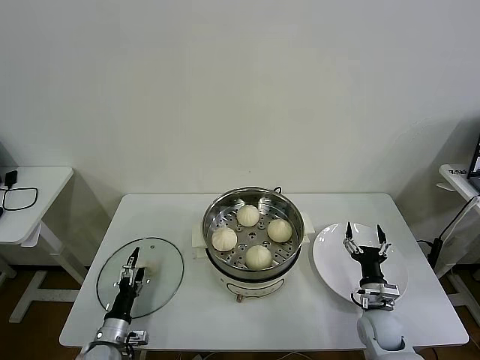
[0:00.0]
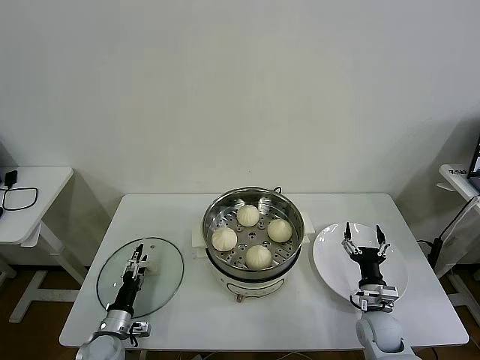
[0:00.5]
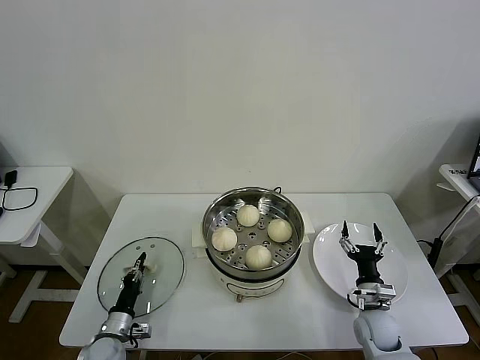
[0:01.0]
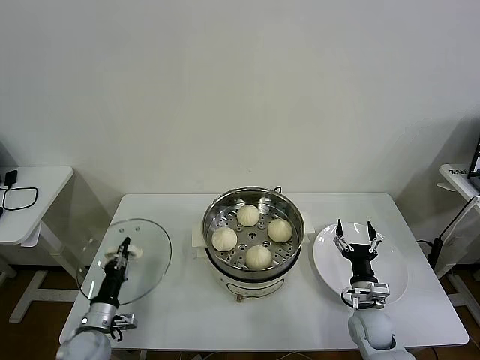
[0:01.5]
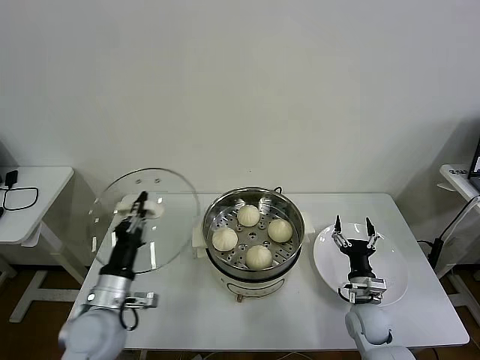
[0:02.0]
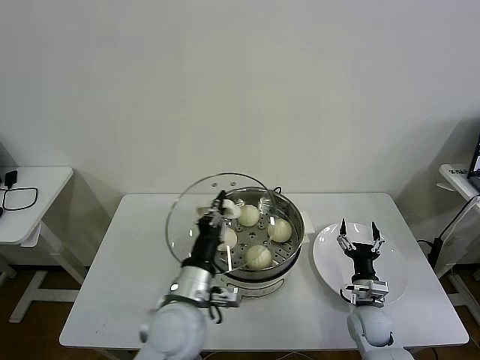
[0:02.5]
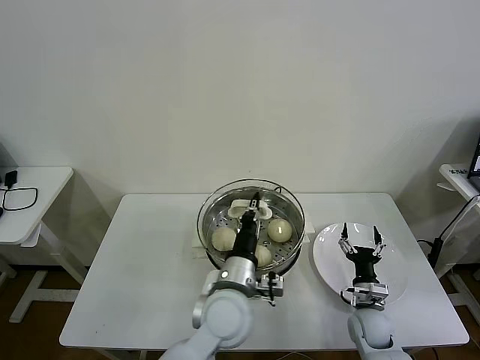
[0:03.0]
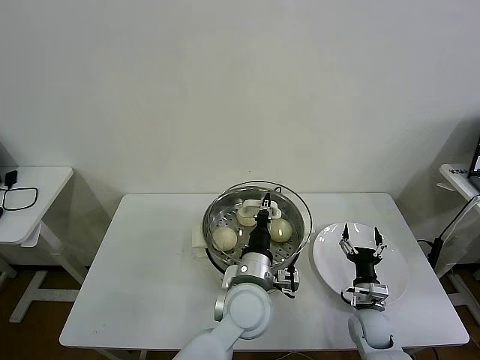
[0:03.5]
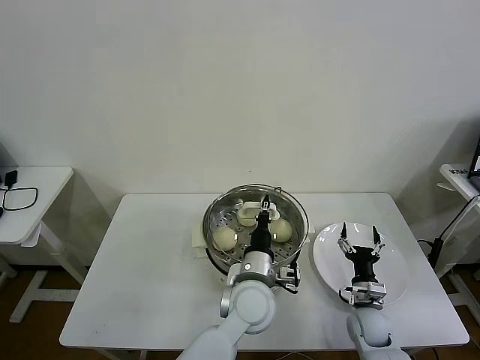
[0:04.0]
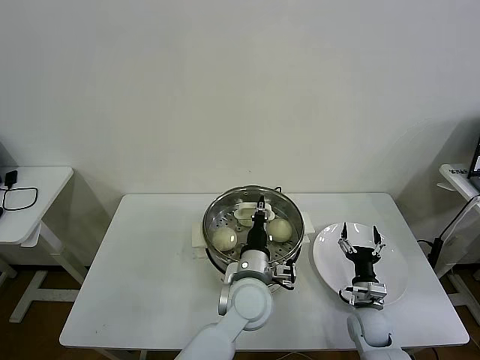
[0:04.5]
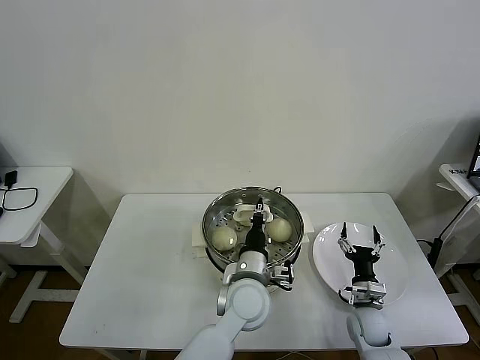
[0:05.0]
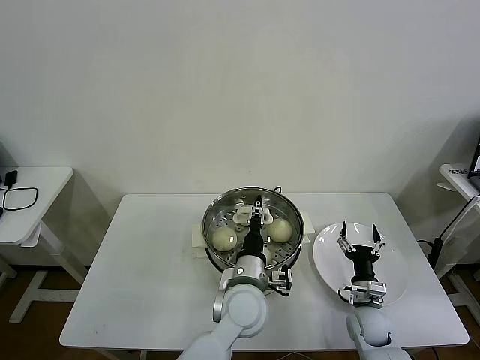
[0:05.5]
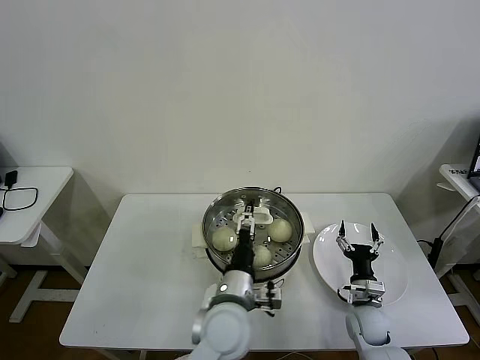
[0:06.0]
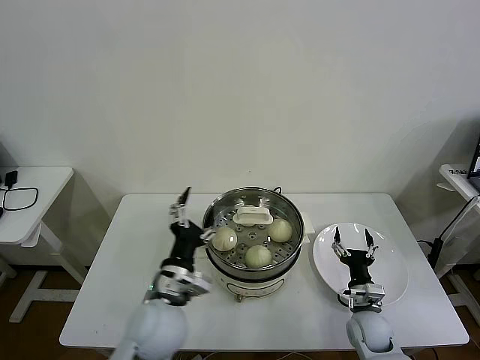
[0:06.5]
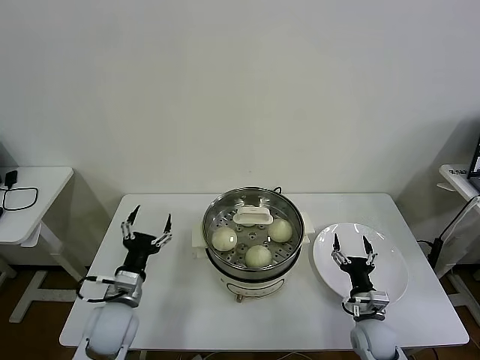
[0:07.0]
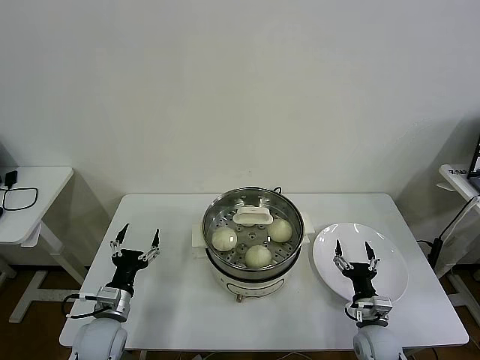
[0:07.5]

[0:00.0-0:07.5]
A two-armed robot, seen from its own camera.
Task of the whole recording: take steamed baozi put them in steamer then cover it.
Step, 1.5 to 5.5 s: Place the pot lid on the steamer with left gripper.
0.0 to 2.0 s: The left gripper goes roughly 20 cm upward, and closes.
2.0 to 4.0 s: The left gripper heads to the right, covering roughly 30 cm.
4.0 to 5.5 s: The left gripper opens its fingers.
5.5 to 7.5 s: The left gripper moves to the left, approximately 30 cm, and opens.

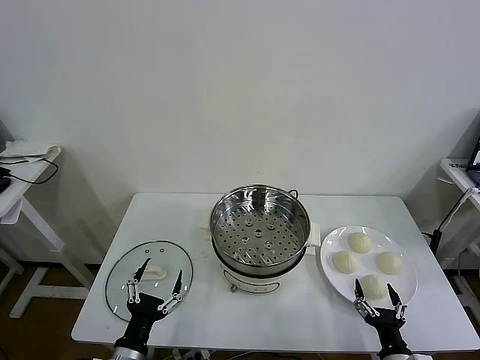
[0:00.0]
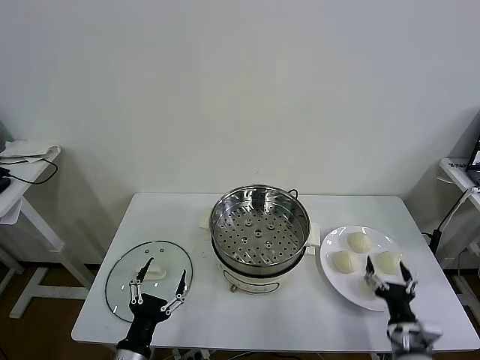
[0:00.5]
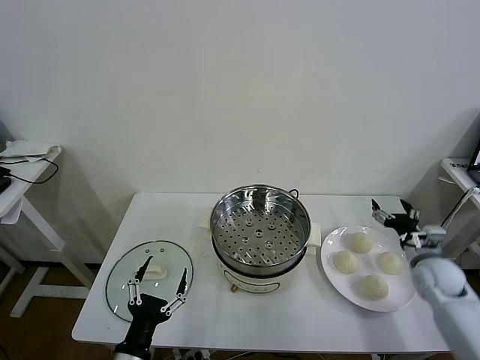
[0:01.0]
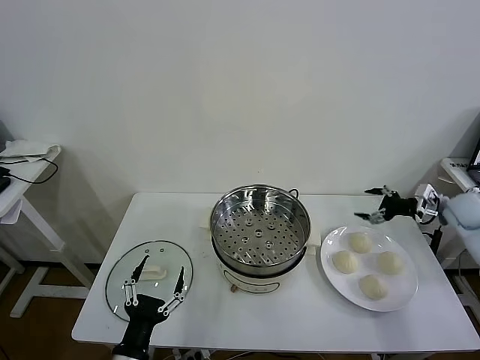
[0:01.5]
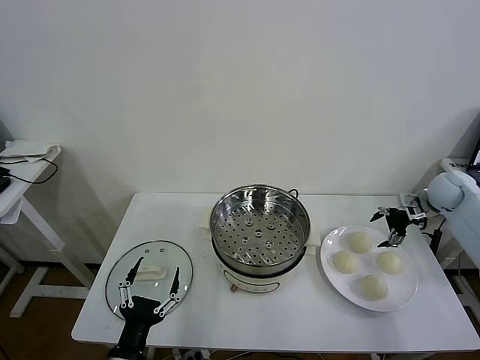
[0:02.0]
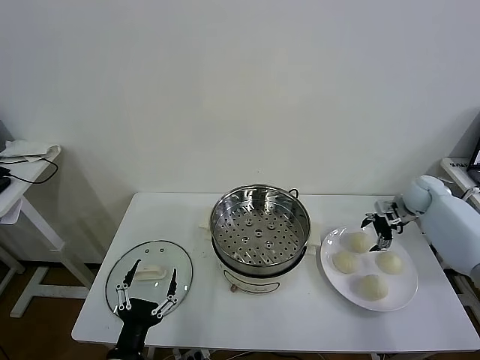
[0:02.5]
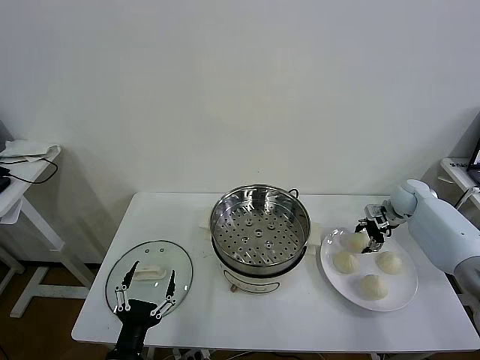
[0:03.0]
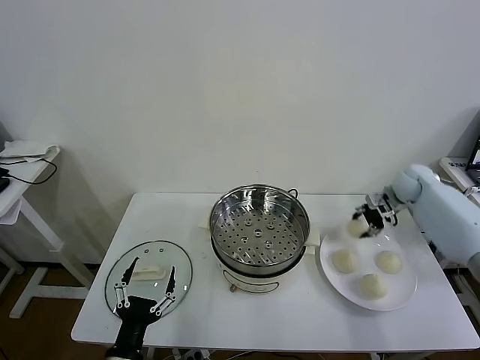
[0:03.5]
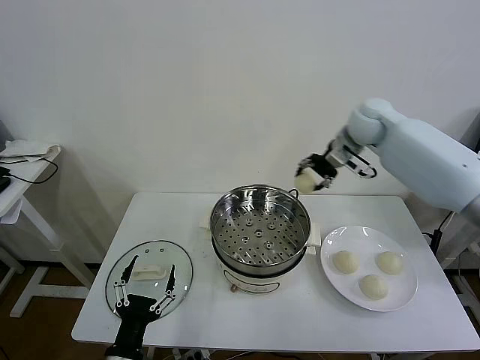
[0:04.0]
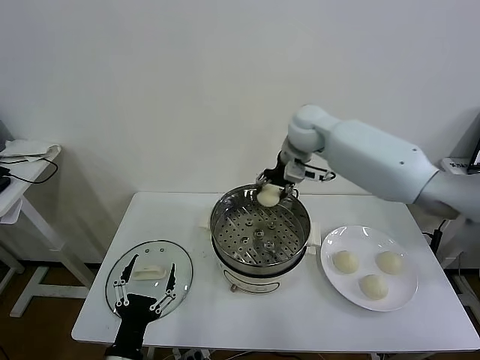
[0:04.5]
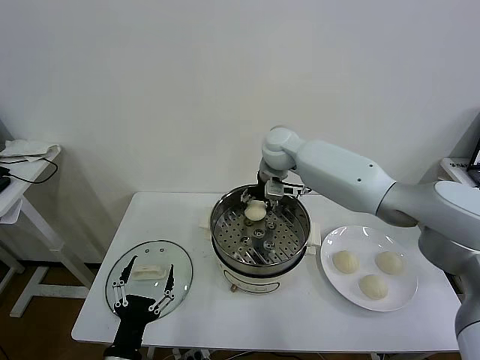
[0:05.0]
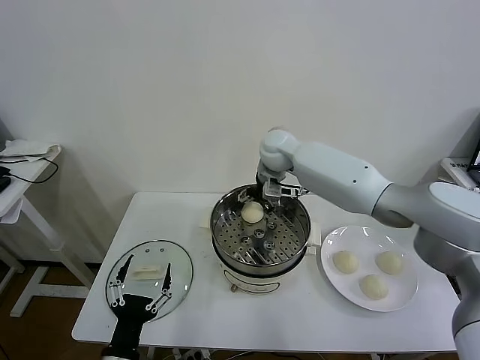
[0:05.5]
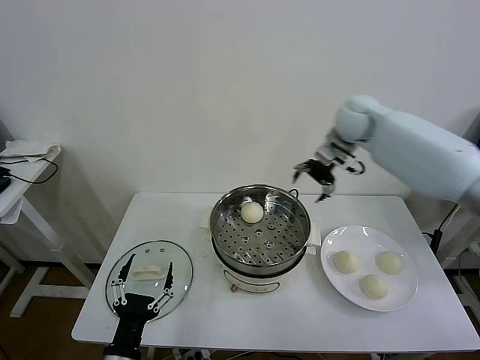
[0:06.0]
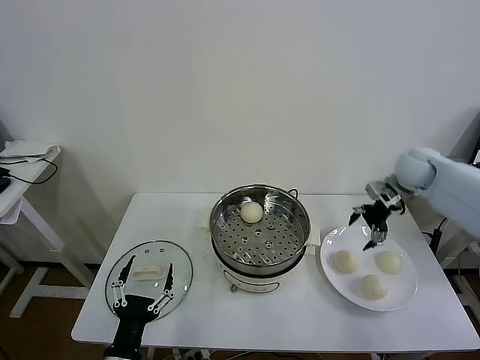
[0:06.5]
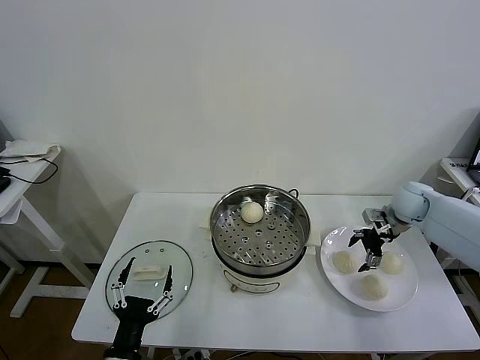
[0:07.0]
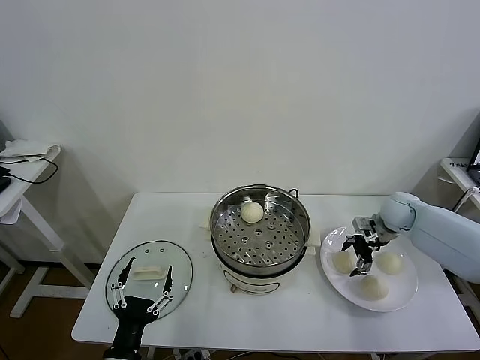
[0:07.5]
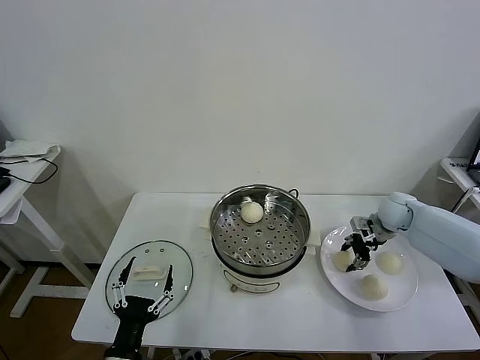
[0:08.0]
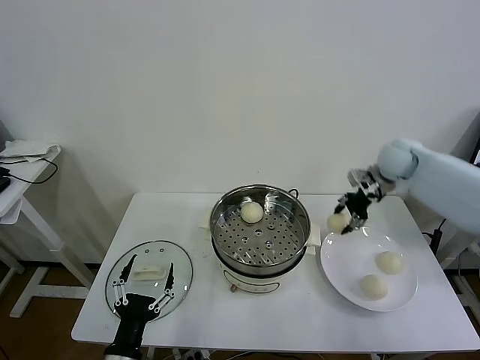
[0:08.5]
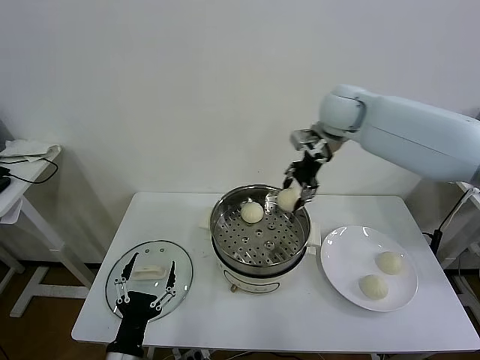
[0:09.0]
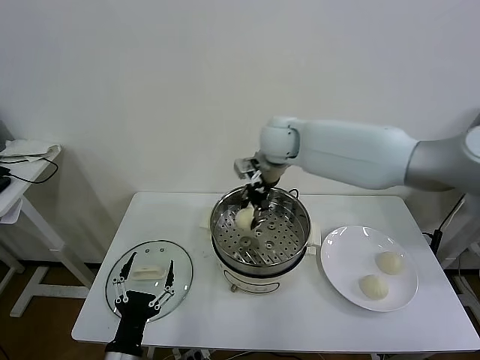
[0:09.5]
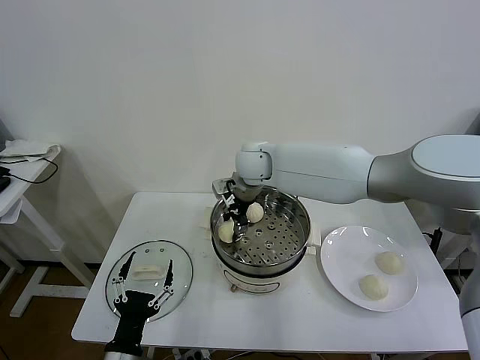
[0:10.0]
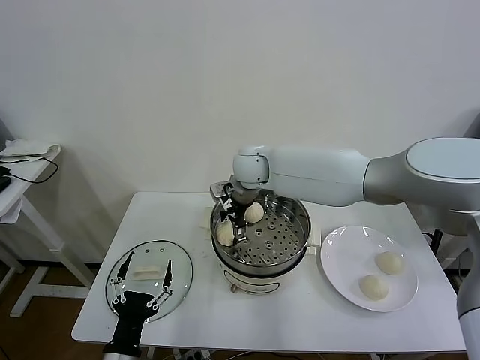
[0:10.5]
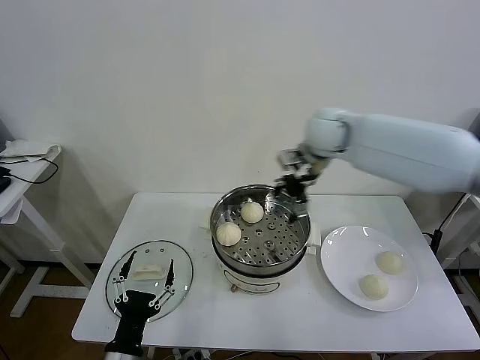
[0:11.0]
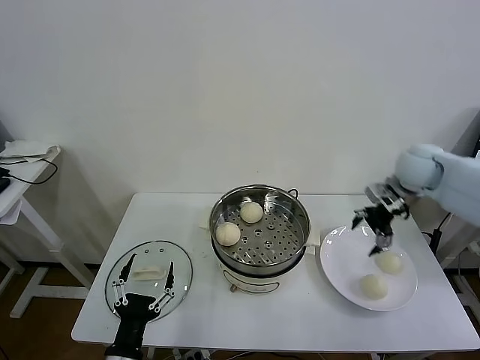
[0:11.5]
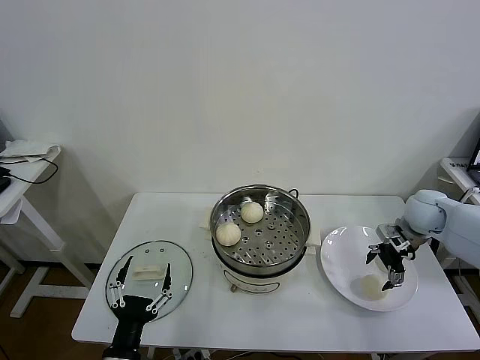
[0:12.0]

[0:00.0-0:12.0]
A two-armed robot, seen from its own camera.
Task of the whole recording: take steamed baozi put them in steamer then cover it.
Step, 0.0 to 3.0 s: Grasp the baozi in the plate with right gripper.
Step, 3.5 to 5.0 s: Place the baozi on the steamer with right gripper.
Step, 6.0 to 7.5 s: Grasp the baozi in the plate with right gripper.
Step, 8.5 to 10.5 s: Place the baozi on the steamer with right gripper.
2.0 to 4.0 s: The right gripper heads to the left and upward, covering approximately 30 cm, and closes.
4.0 to 6.0 s: The right gripper reaches some 20 cm to the left, then returns, and opens.
6.0 to 8.0 s: The right gripper heads downward and to the right, covering approximately 25 cm, and closes.
8.0 to 10.0 s: The right gripper goes about 40 cm to the left.
10.0 to 12.0 s: The right gripper goes some 40 cm to the right, and opens.

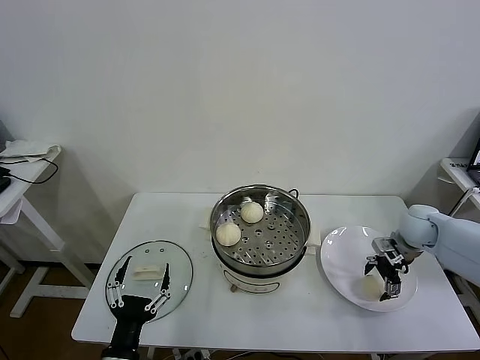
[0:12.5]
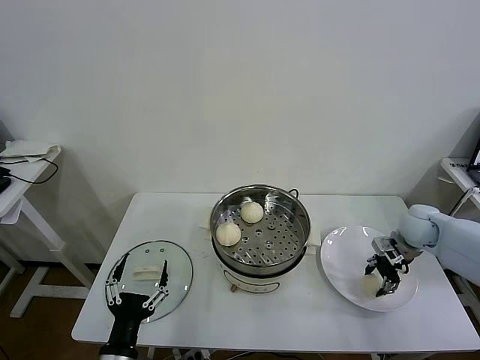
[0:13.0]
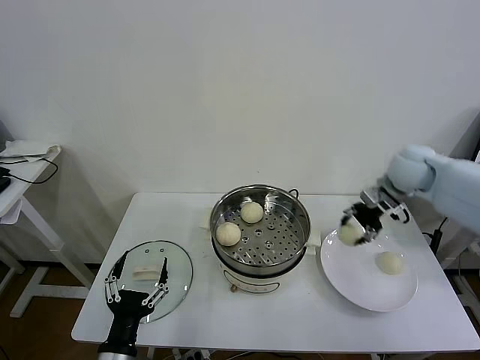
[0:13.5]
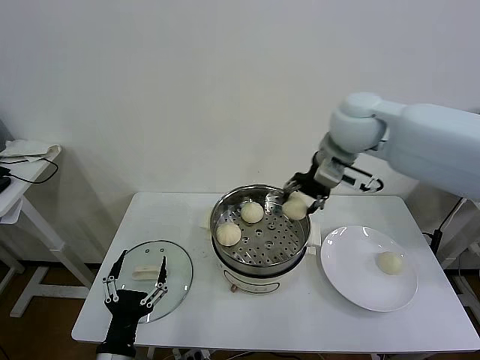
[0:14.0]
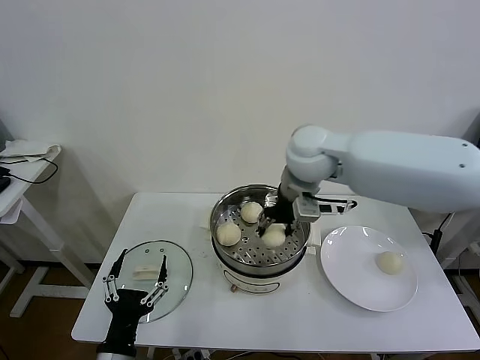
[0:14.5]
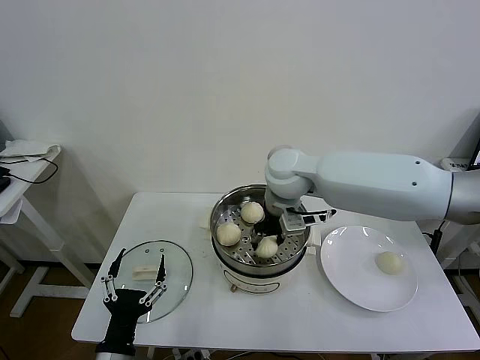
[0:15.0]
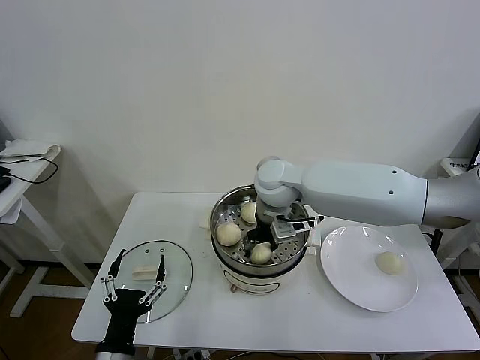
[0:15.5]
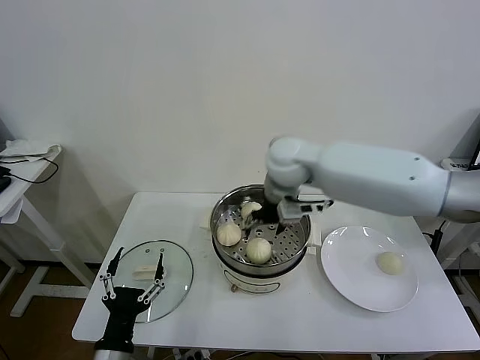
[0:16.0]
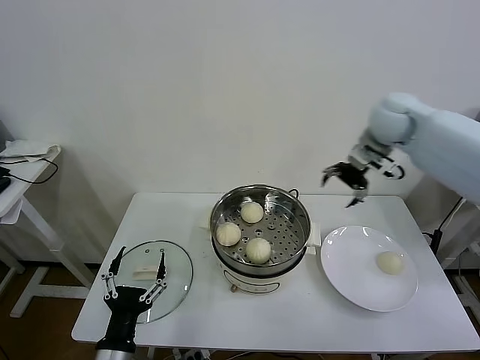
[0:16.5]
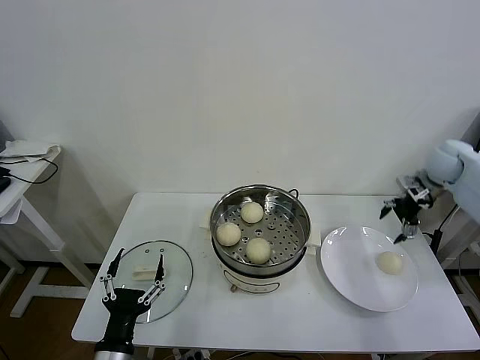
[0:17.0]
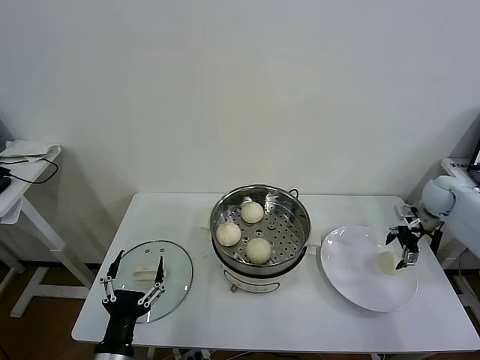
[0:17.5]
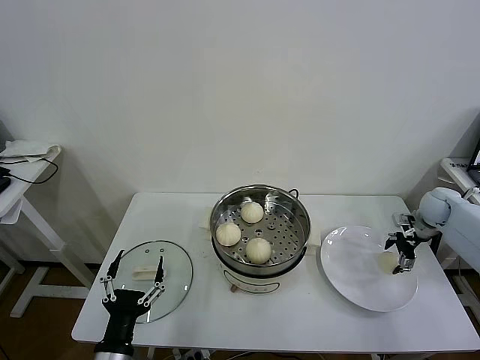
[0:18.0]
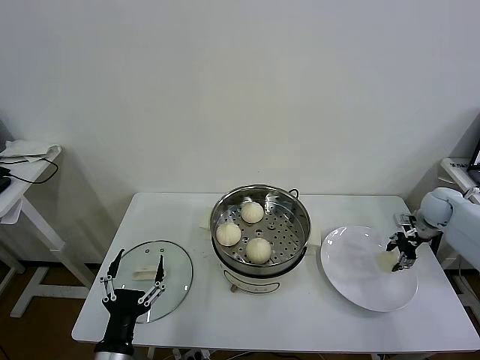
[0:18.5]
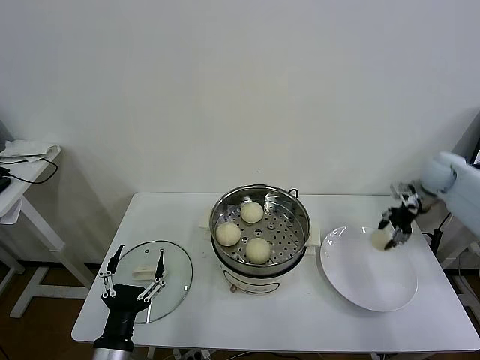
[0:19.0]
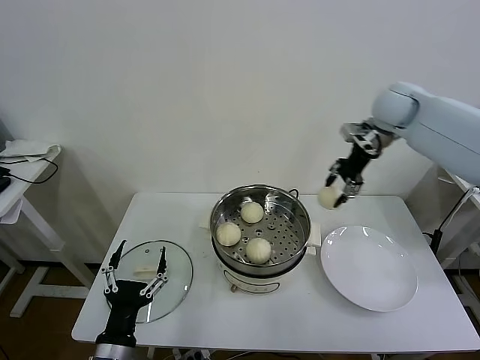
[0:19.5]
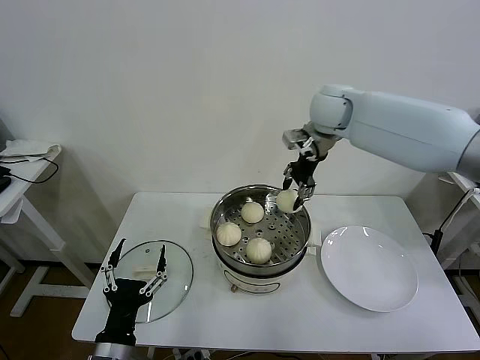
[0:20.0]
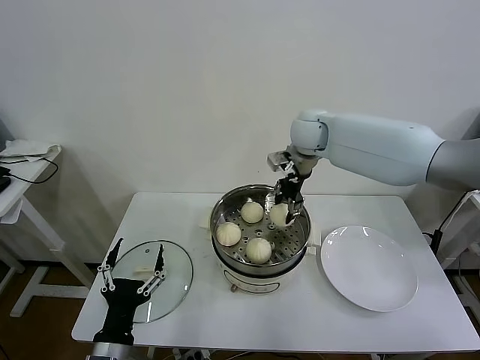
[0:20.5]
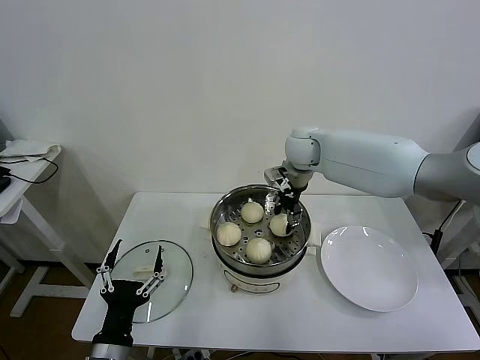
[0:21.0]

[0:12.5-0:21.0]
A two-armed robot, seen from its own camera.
Task of the whole recording: take steamed baozi put them in steamer then cover it.
Step, 13.5 to 15.5 s: Place the baozi on the steamer with right gripper.
Step, 16.0 to 18.5 s: Grasp the baozi in the plate with right gripper.
12.5 to 14.5 s: The right gripper shifts some 35 cm to the left and upward, and closes up.
14.5 to 16.5 s: The right gripper travels to the right and forward by roughly 20 cm, and opens.
16.5 to 19.0 s: The right gripper moves to the right and downward, some 25 cm, and closes up.
19.0 to 21.0 s: The right gripper is displaced to the left by approximately 35 cm.
